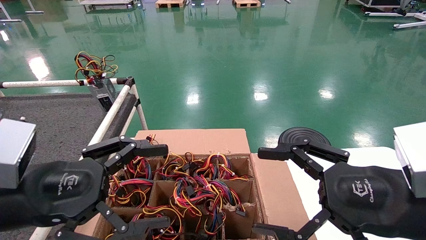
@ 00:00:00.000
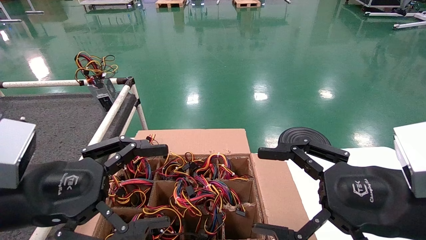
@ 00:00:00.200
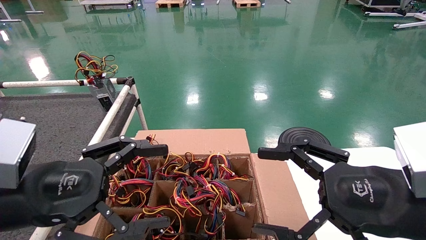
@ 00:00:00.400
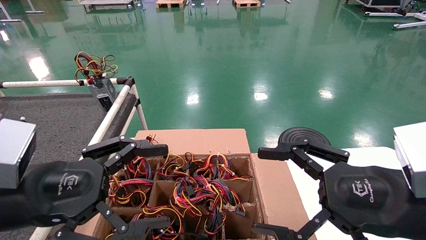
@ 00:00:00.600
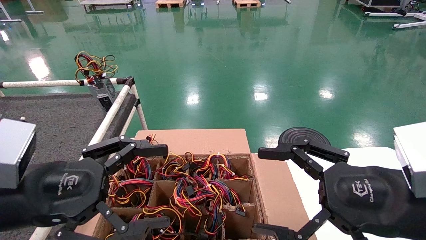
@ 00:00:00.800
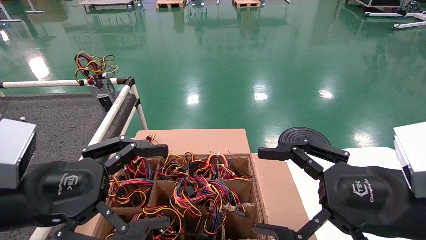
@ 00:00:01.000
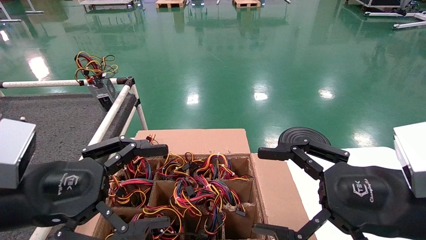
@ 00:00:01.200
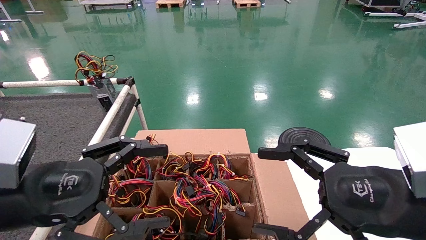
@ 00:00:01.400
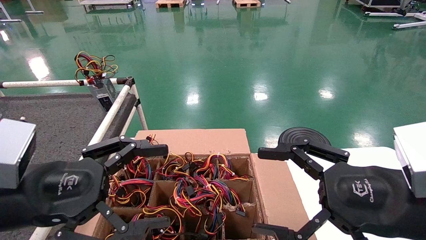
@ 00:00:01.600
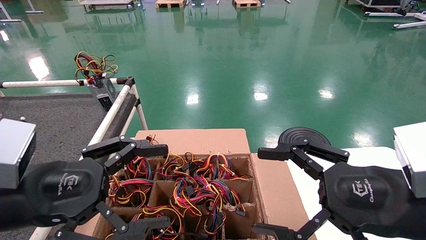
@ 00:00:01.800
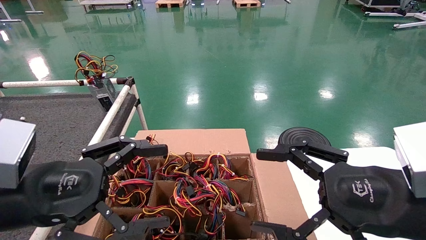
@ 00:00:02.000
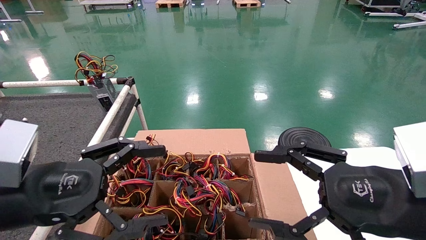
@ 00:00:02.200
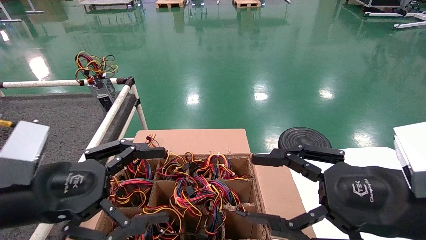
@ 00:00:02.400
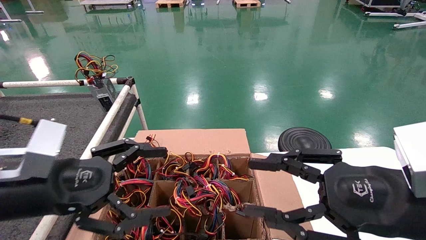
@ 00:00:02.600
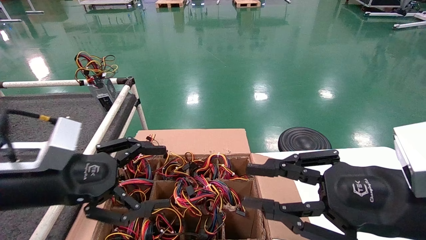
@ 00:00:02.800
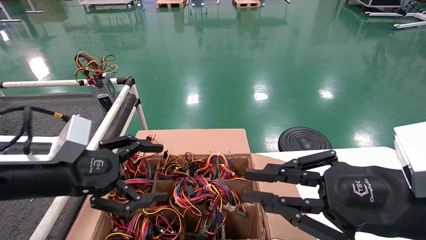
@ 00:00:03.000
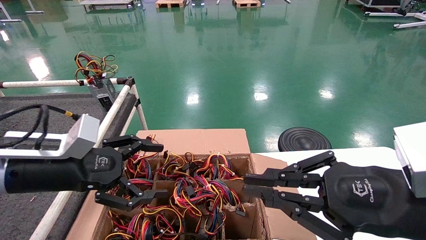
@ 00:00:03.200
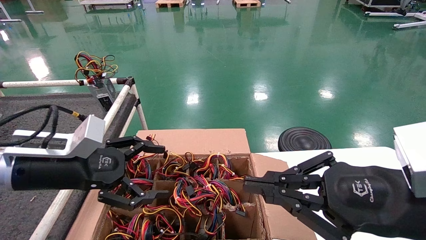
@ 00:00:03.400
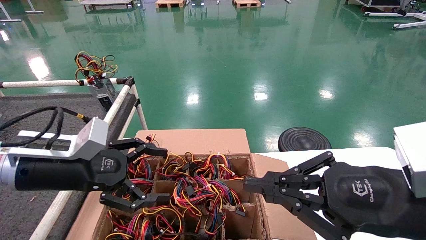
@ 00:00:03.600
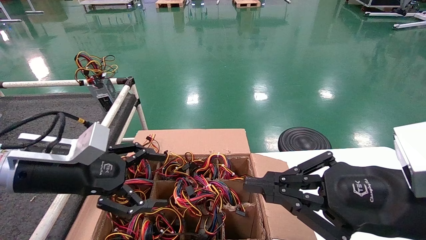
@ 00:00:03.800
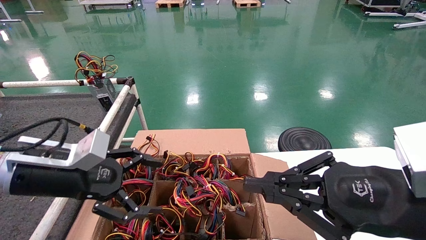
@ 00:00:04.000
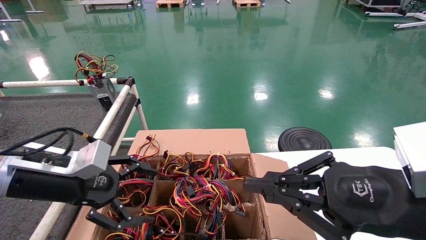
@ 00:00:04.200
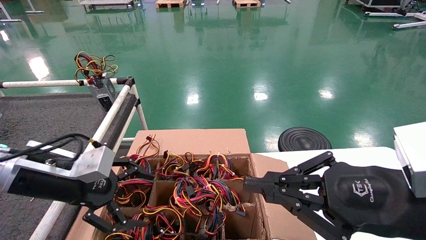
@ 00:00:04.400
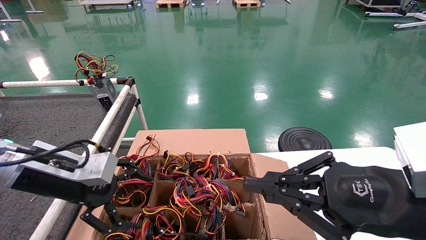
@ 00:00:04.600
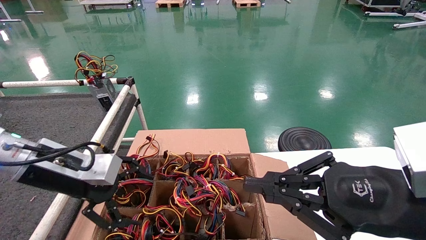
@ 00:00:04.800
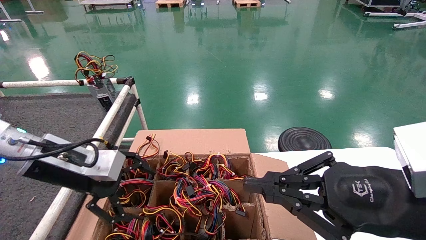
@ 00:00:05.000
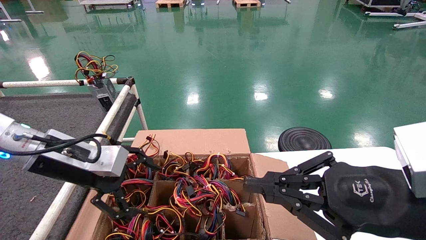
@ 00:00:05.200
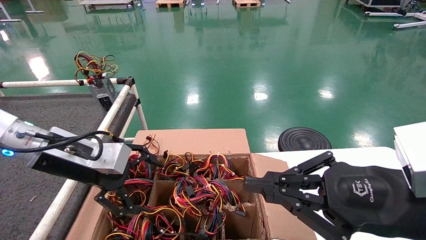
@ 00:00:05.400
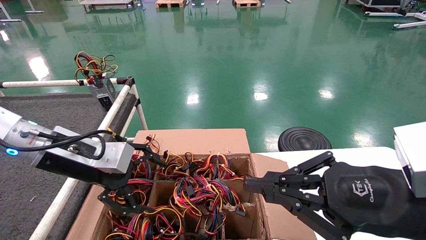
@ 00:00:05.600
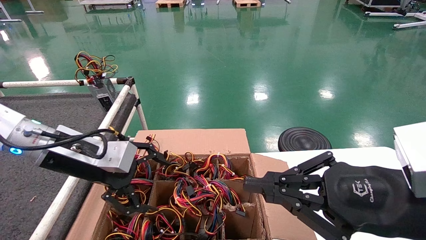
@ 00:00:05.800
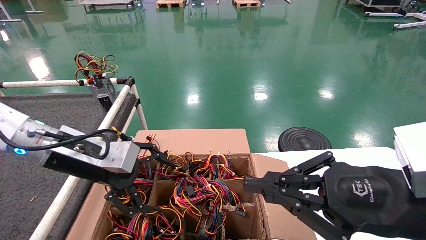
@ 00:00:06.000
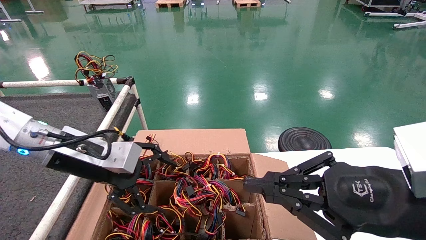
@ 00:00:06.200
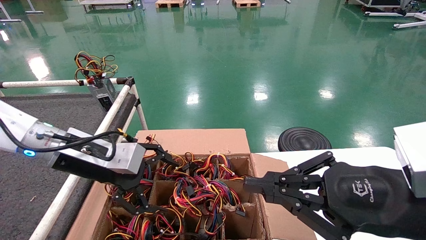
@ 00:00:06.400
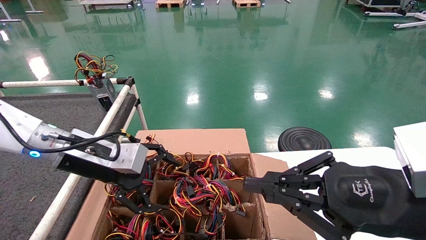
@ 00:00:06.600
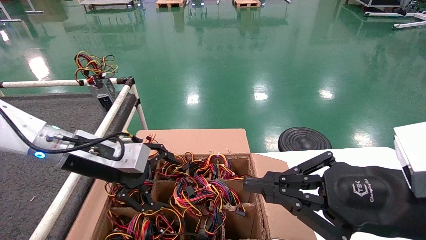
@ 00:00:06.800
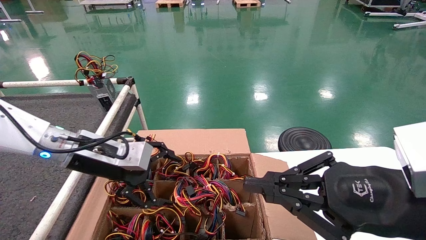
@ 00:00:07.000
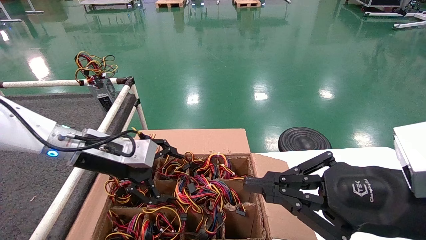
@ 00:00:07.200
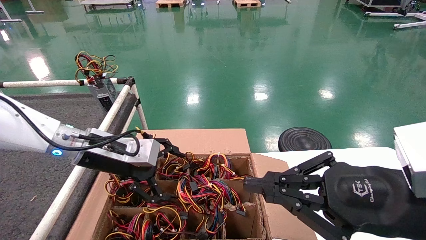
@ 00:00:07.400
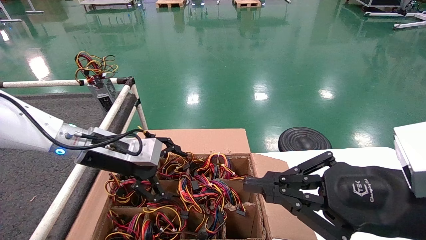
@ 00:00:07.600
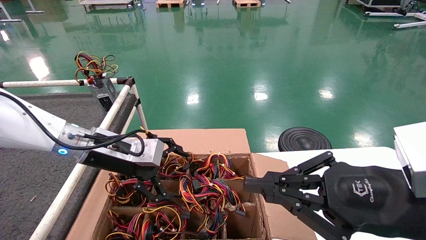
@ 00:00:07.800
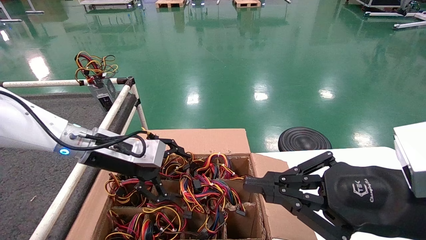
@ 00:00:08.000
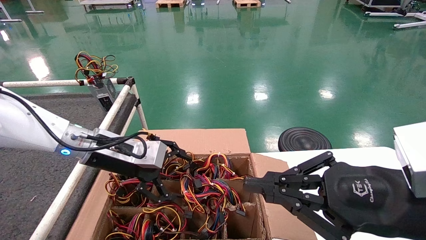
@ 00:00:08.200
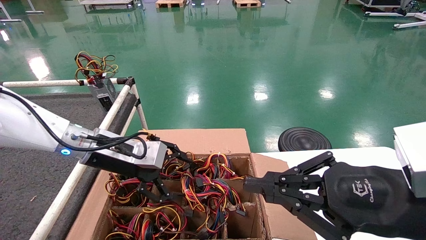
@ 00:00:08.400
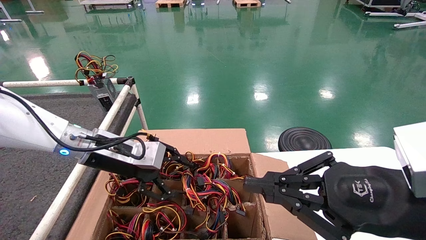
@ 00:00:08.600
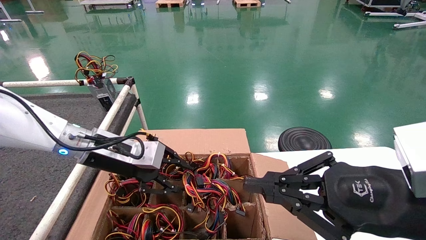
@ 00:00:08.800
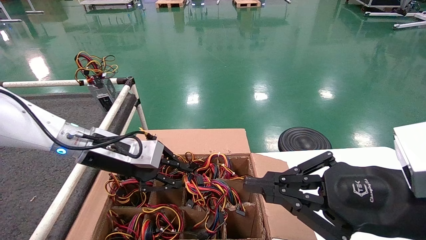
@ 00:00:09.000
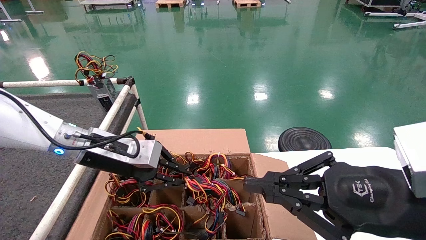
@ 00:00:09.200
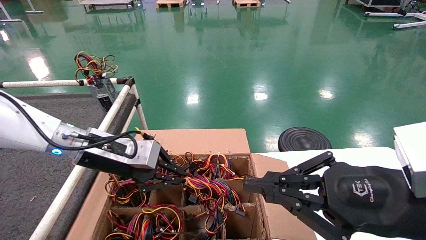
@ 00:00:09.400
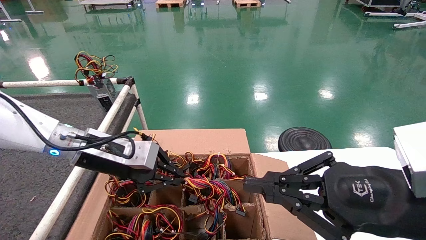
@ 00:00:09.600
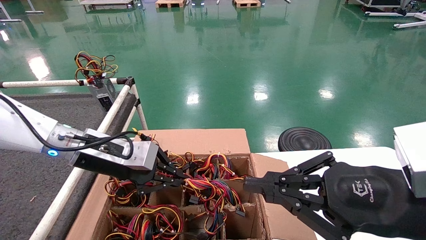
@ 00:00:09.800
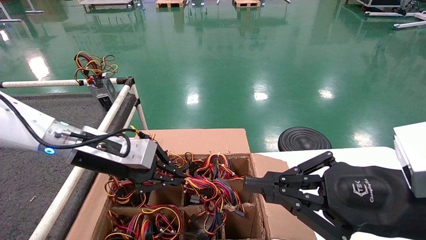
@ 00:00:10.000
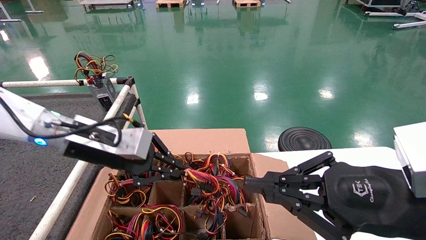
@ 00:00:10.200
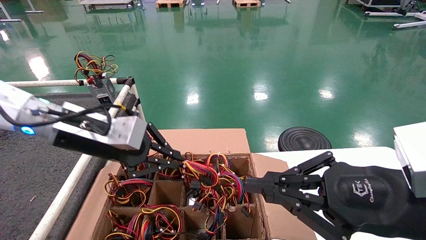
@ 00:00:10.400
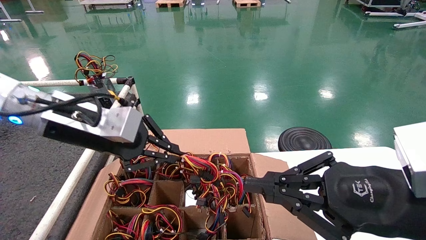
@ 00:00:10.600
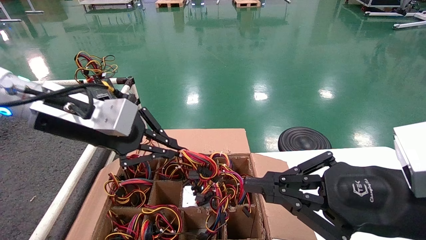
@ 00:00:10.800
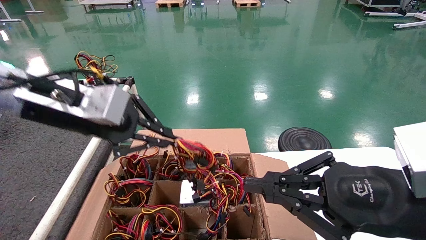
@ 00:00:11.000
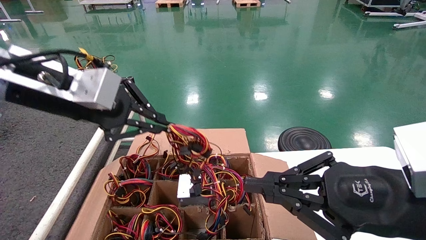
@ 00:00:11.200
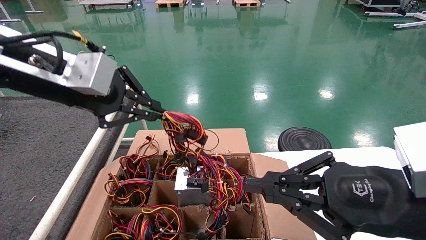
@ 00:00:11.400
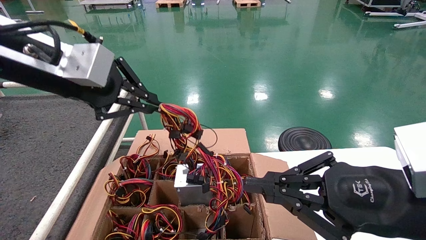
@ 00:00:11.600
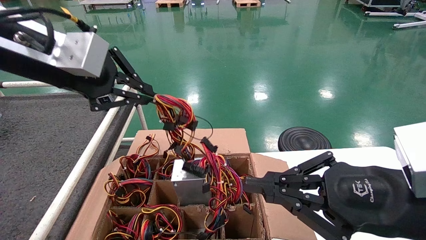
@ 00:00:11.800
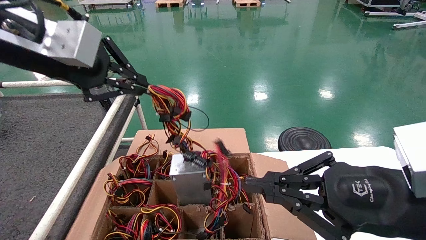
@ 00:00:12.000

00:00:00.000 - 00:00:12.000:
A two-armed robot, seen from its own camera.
Step, 00:00:02.600 - 00:00:09.400: Grab and lift the power supply from the large box.
00:00:00.000 - 00:00:01.600: Both grippers stay about where they are.
00:00:01.600 - 00:00:03.000: The right gripper closes, while the left gripper goes roughly 5 cm forward.
00:00:03.000 - 00:00:04.400: The right gripper closes up.
00:00:04.400 - 00:00:06.000: The left gripper changes place by some 5 cm.
00:00:06.000 - 00:00:07.600: The left gripper shifts by roughly 5 cm.
00:00:07.600 - 00:00:09.000: The left gripper closes up.
00:00:09.000 - 00:00:10.400: The left gripper goes approximately 5 cm upward, and closes its fingers.
00:00:10.400 - 00:00:12.000: The left gripper shifts roughly 15 cm upward.

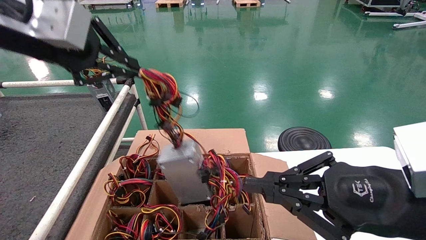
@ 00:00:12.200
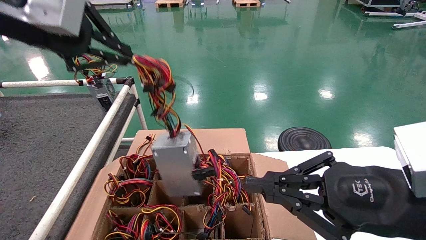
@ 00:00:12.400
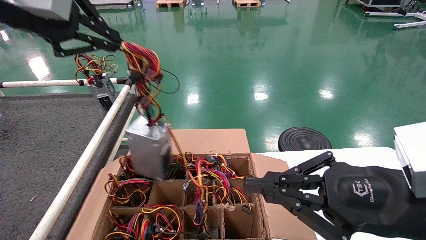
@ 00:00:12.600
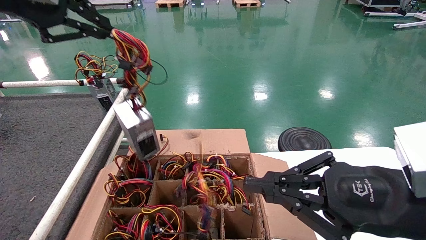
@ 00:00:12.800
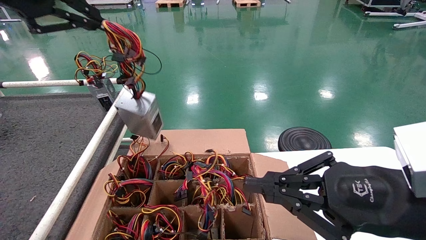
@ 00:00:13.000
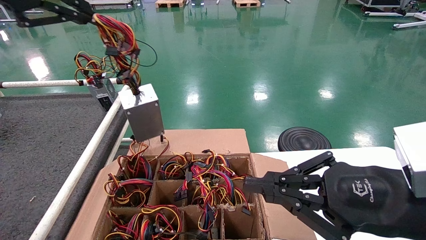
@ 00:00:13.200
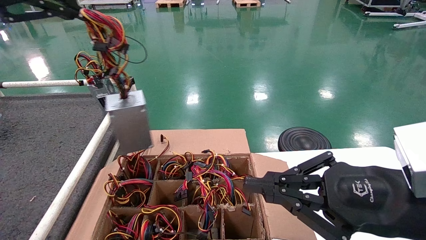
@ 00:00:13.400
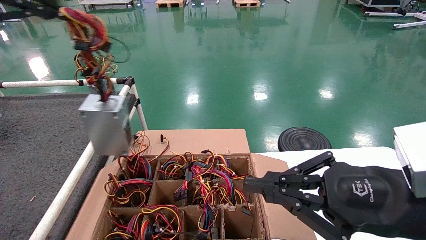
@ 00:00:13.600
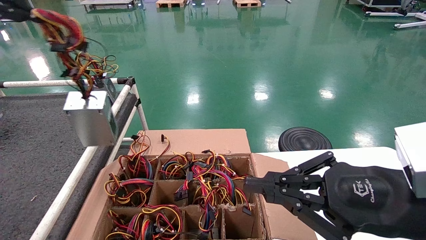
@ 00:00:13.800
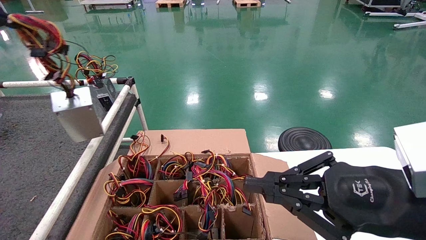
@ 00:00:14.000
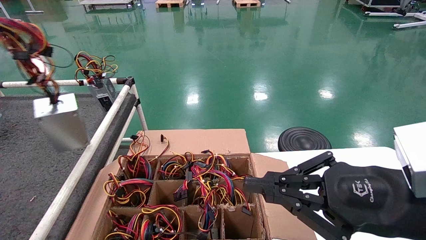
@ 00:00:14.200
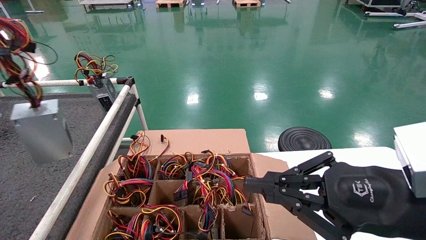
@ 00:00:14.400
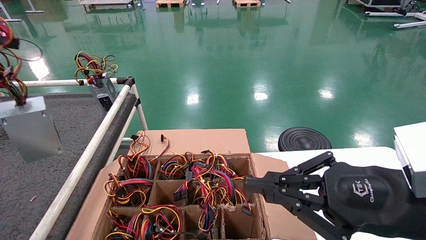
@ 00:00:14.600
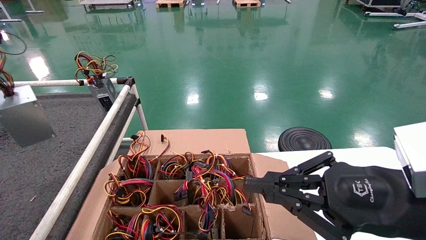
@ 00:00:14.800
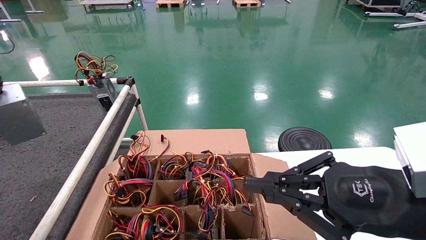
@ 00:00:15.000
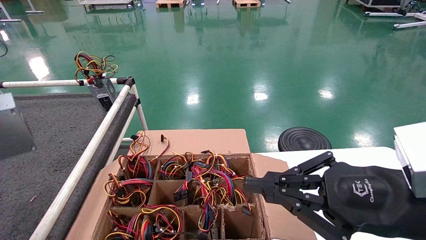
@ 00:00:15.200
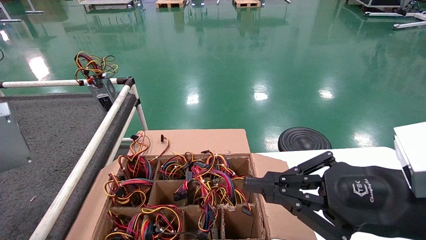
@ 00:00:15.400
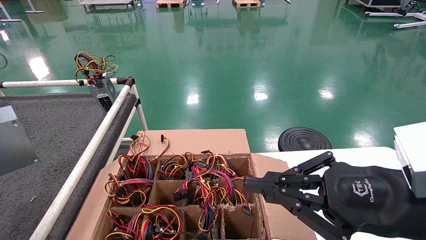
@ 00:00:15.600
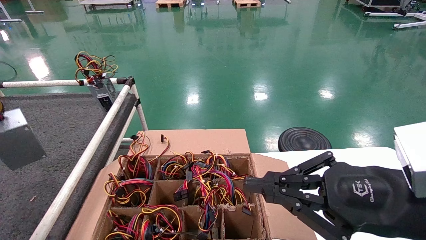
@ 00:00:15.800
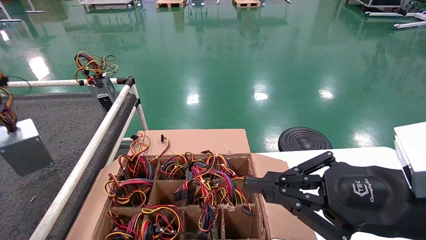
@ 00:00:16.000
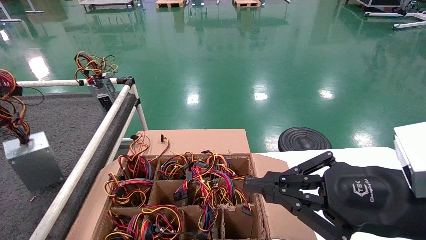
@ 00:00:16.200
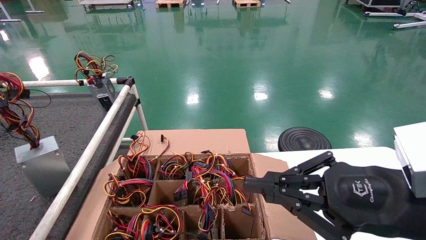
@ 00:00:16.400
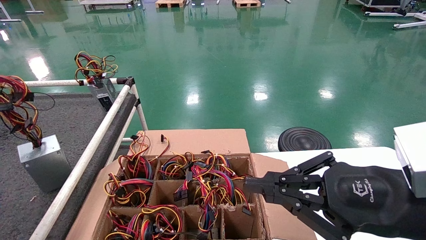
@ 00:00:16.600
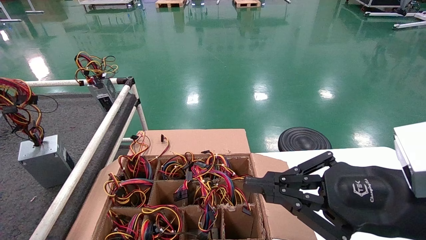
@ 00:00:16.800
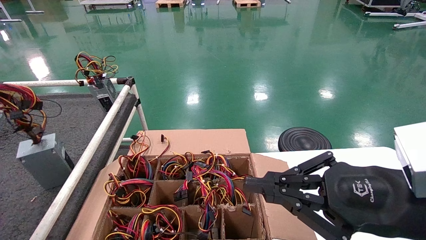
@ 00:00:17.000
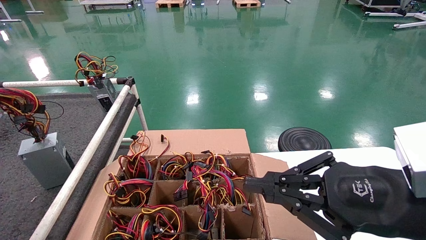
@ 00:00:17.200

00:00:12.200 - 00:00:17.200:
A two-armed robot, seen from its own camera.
00:00:12.200 - 00:00:13.800: The left gripper shifts approximately 15 cm to the left, backward and upward.
00:00:13.800 - 00:00:15.600: The left gripper heads to the left, covering roughly 10 cm.
00:00:15.600 - 00:00:17.200: The left gripper goes some 10 cm downward and forward.
